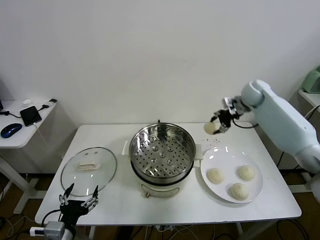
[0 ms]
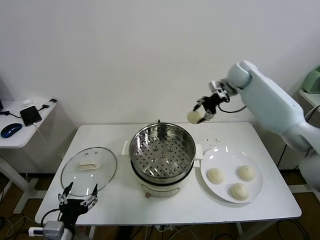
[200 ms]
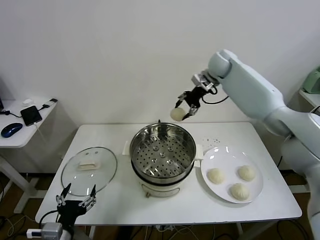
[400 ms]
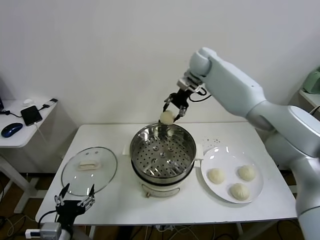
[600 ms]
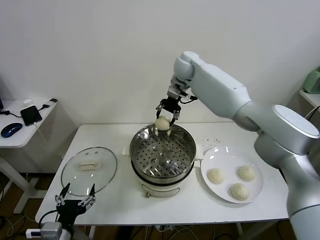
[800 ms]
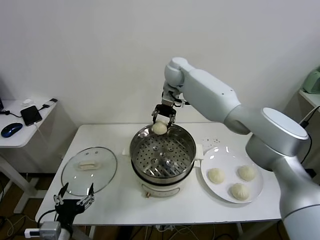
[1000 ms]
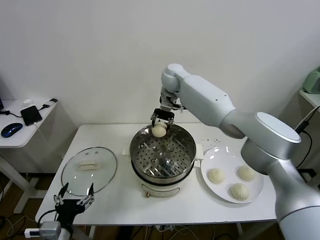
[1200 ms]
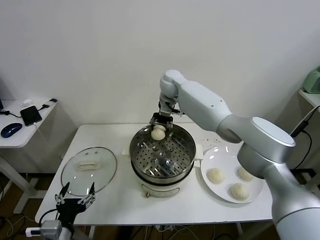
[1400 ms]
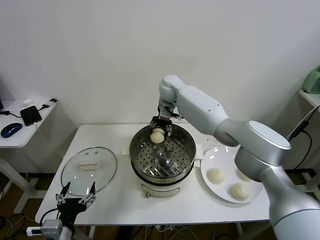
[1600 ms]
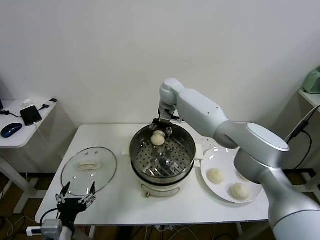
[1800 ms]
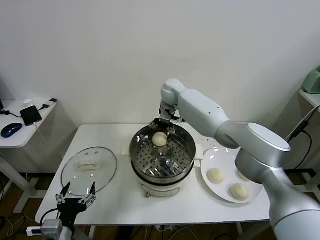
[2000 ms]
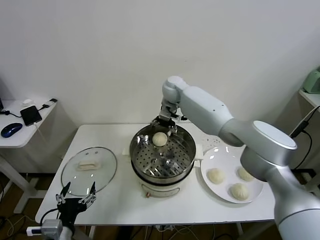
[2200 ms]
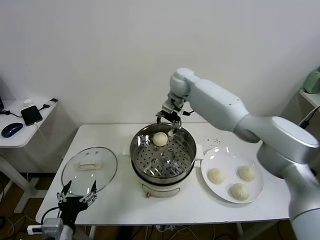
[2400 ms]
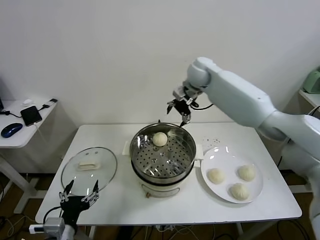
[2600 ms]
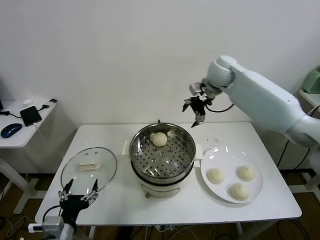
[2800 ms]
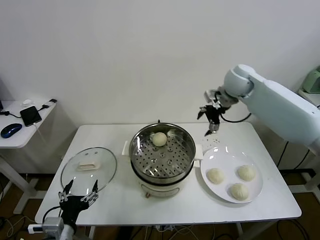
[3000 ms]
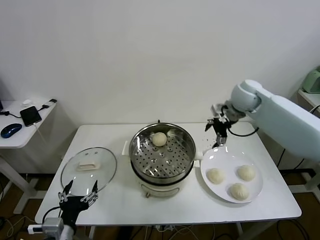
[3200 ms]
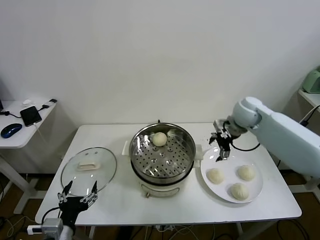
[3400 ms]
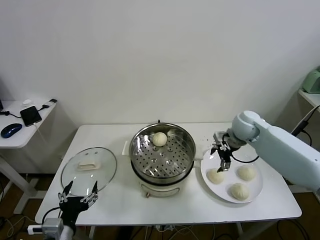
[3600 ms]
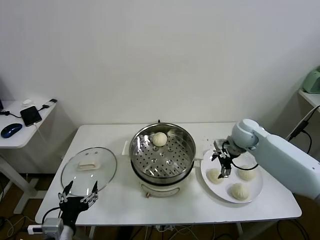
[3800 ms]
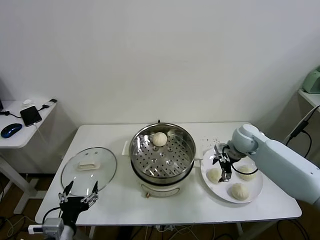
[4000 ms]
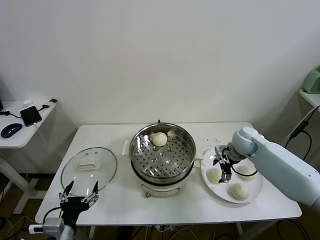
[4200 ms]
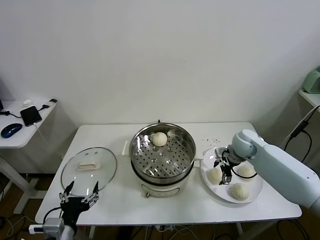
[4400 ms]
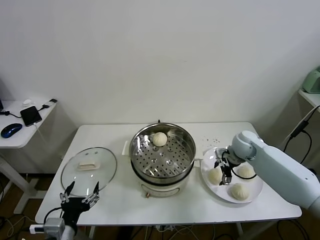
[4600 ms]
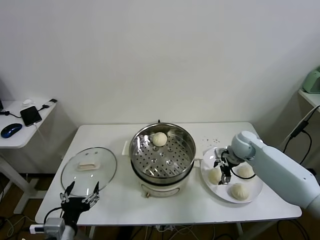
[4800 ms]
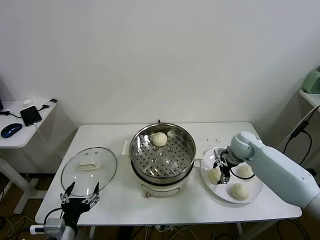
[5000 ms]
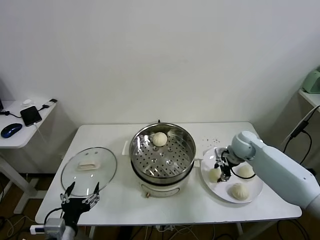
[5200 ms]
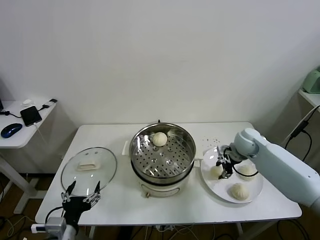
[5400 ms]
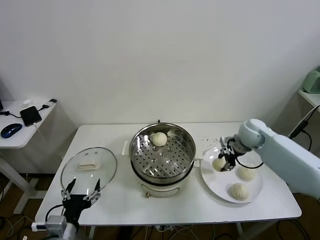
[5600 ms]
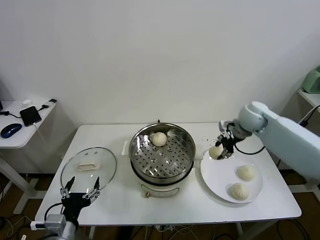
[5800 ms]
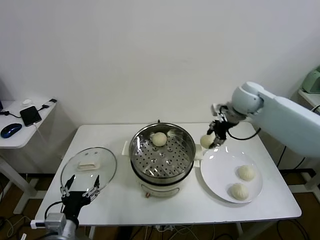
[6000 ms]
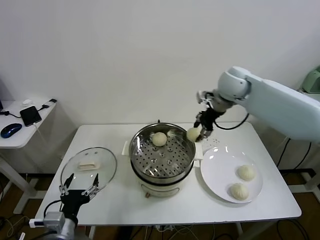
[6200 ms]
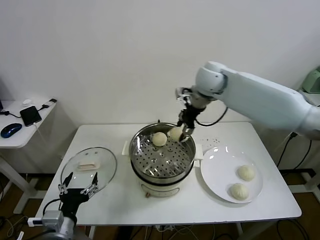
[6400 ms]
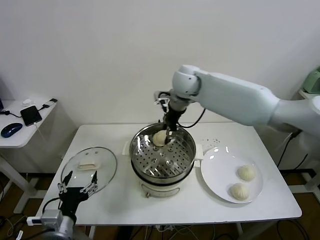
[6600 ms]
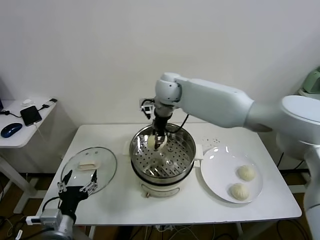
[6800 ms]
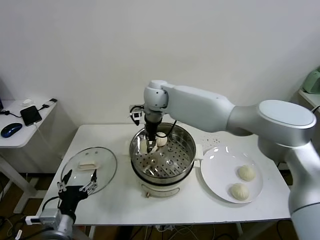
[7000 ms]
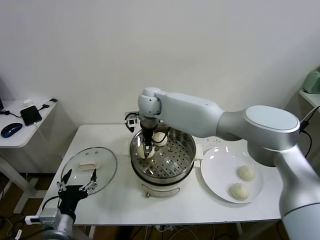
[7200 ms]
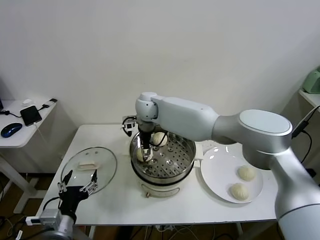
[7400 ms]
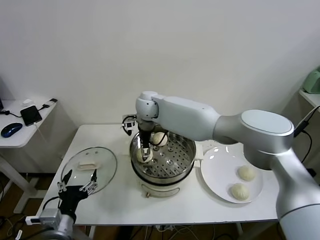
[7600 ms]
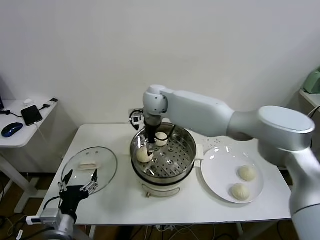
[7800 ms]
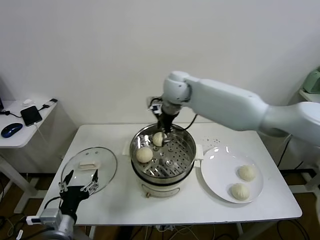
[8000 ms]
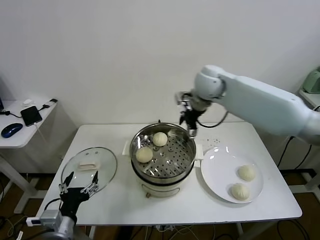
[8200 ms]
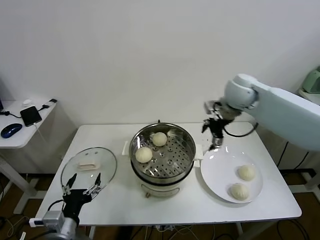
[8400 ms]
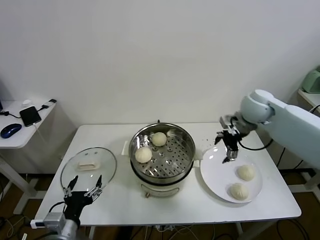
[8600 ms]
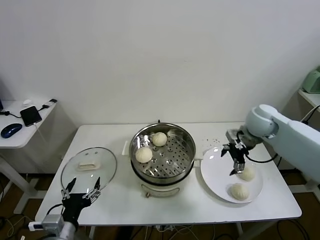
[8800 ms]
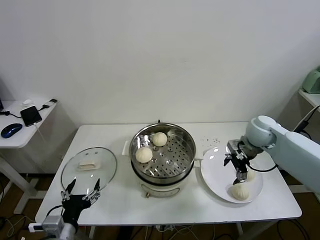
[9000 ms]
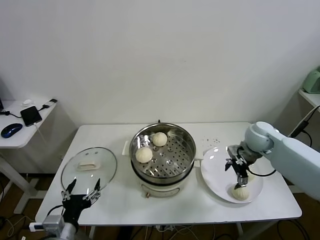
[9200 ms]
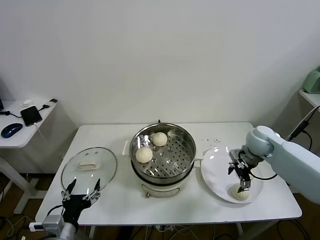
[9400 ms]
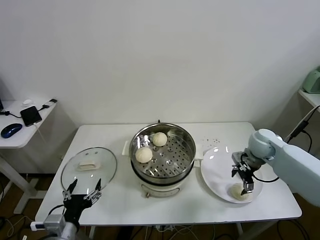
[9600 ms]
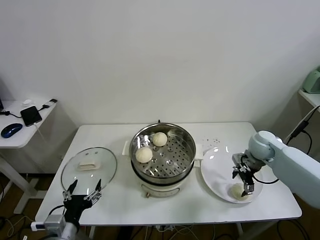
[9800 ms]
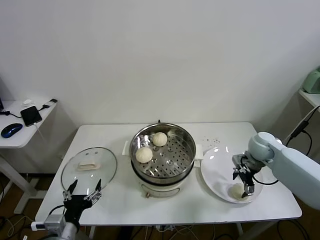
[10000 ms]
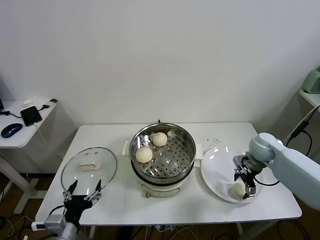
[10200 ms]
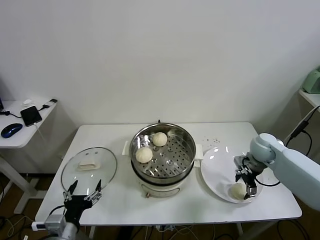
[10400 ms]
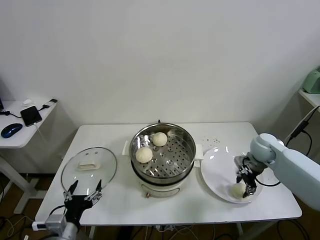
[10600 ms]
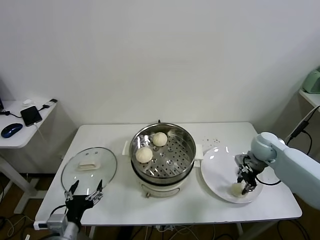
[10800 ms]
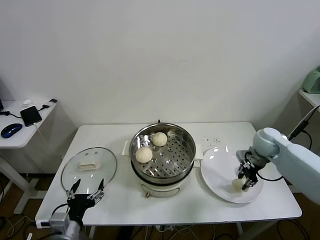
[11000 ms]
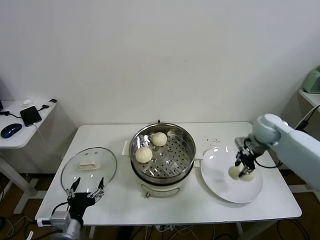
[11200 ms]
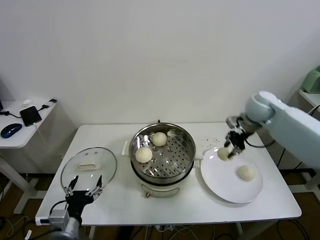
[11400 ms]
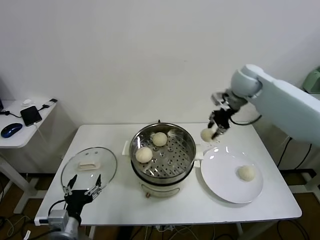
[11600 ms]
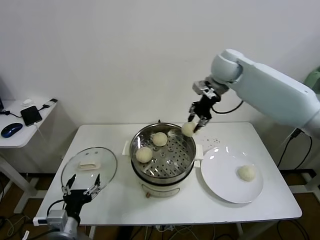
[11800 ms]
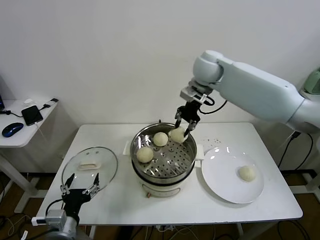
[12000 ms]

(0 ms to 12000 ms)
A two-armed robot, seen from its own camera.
Task of the whole recording: take steamed baozi put them in steamer.
Step, 0 ms - 2000 ms: Place the baozi on the steamer with right gripper.
Step, 2200 ms - 5200 ms: Grasp the baozi in the plate with right gripper.
Step, 5400 ms - 7400 ms: Place the baozi on the steamer with right gripper.
Step, 7800 ms - 10800 ms: Grasp the baozi in the plate with right gripper.
0 ms - 1600 ms: The right gripper moves to the left, roughly 25 cm.
1600 ms - 3000 ms: The right gripper moves to the right, approximately 25 cm, and opens its fingers.
3000 ms - 4400 ms: The right gripper heads downward, covering about 20 cm.
4400 ms - 6000 ms: The right gripper is displaced upward by some 25 cm, and closes its fingers.
6000 ms - 7600 ms: The right gripper is displaced to the left by about 25 cm, and opens.
7600 ms - 9000 ms: The right gripper shifts some 35 cm to the right.
9000 ms - 10400 ms: The right gripper moves downward, roughly 5 cm.
10400 ms - 12000 ms: The right gripper goes roughly 35 cm upward and to the left, and closes up.

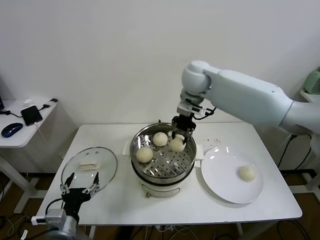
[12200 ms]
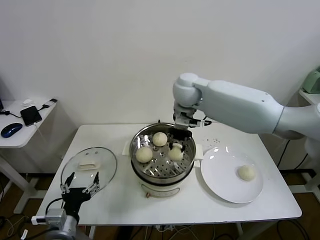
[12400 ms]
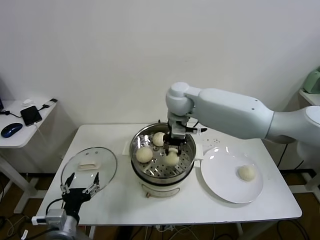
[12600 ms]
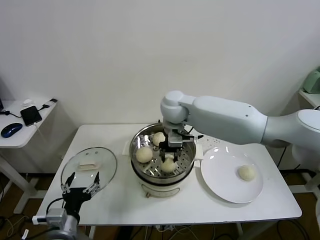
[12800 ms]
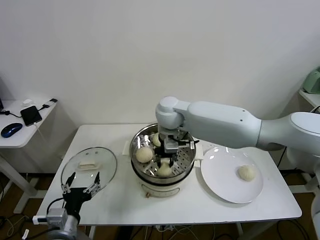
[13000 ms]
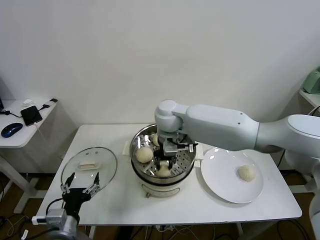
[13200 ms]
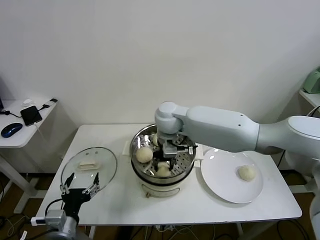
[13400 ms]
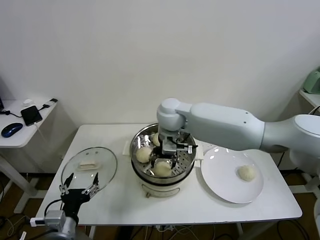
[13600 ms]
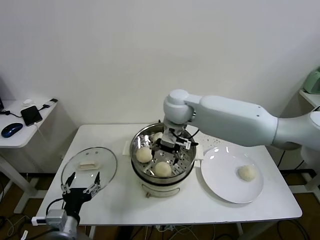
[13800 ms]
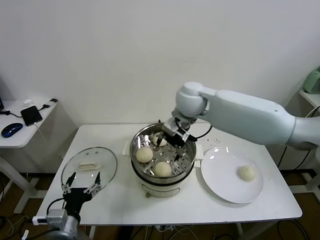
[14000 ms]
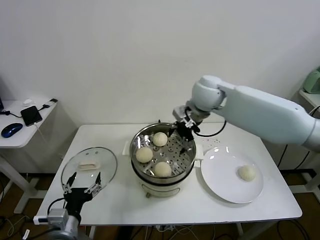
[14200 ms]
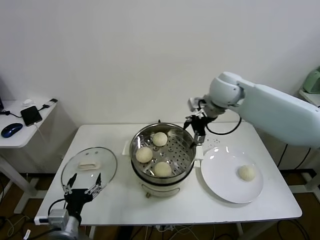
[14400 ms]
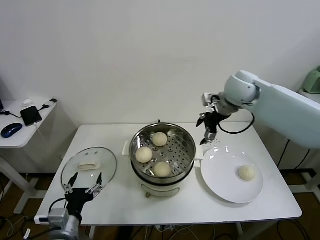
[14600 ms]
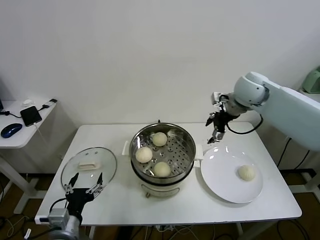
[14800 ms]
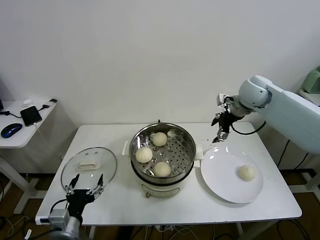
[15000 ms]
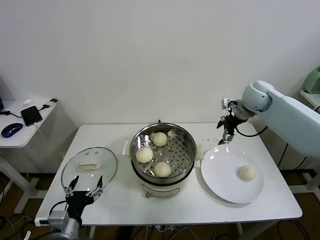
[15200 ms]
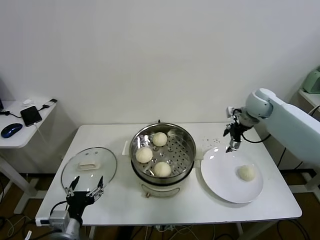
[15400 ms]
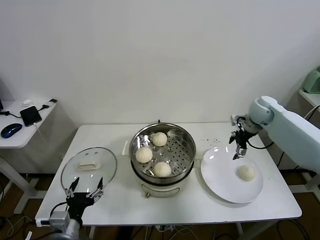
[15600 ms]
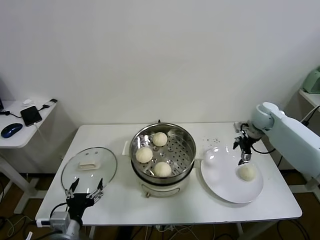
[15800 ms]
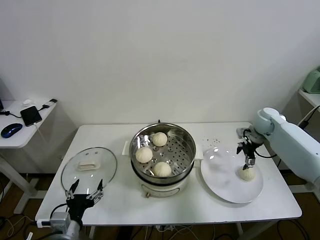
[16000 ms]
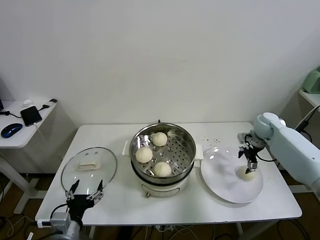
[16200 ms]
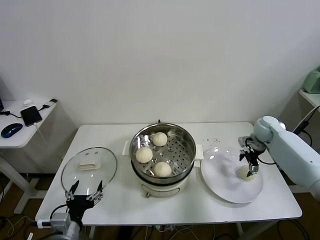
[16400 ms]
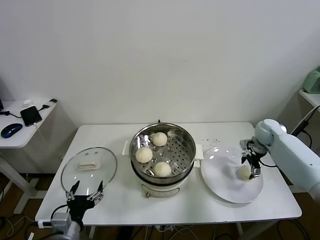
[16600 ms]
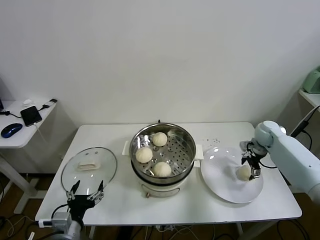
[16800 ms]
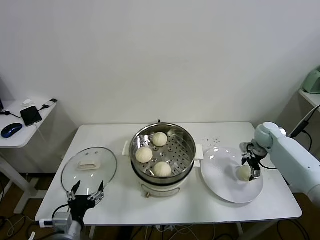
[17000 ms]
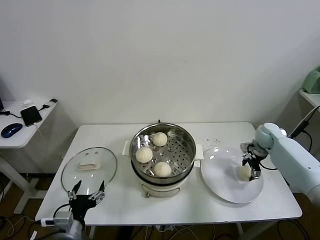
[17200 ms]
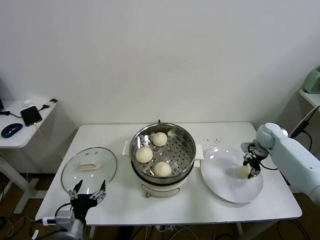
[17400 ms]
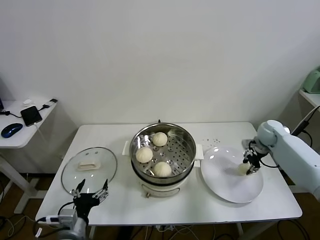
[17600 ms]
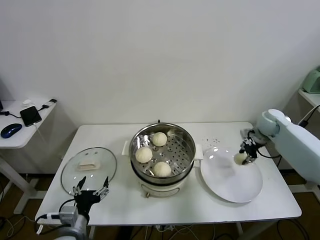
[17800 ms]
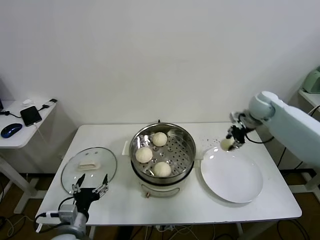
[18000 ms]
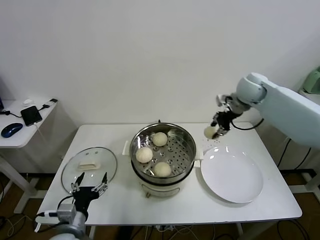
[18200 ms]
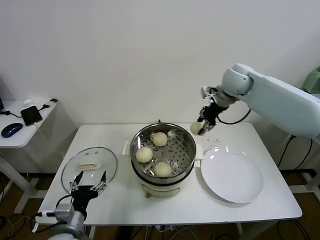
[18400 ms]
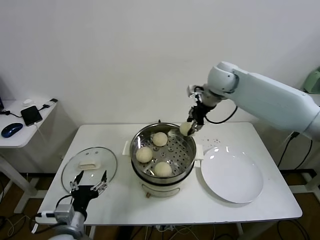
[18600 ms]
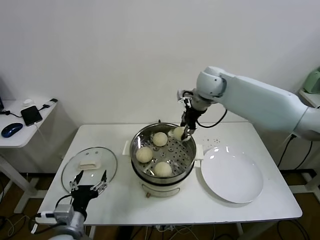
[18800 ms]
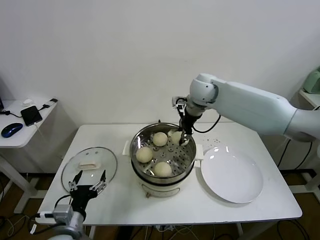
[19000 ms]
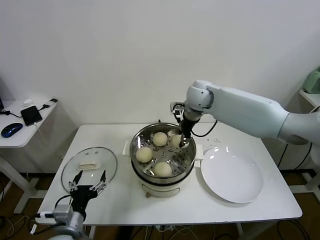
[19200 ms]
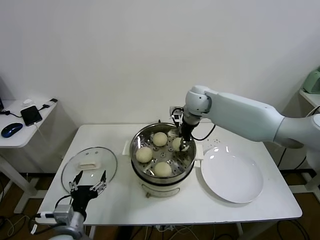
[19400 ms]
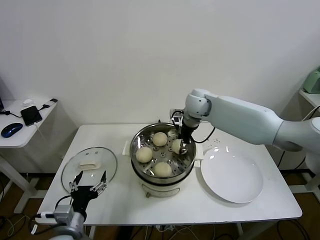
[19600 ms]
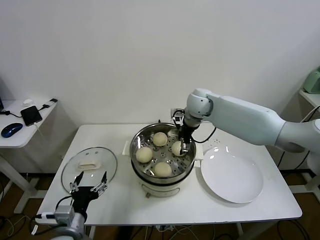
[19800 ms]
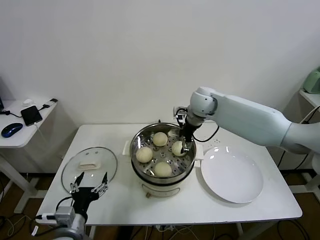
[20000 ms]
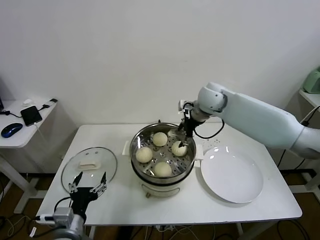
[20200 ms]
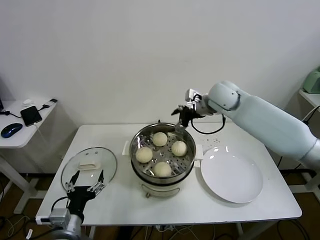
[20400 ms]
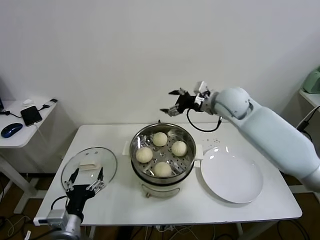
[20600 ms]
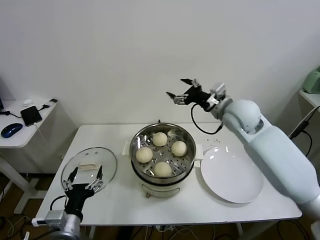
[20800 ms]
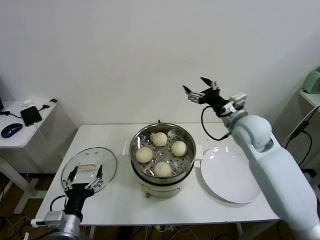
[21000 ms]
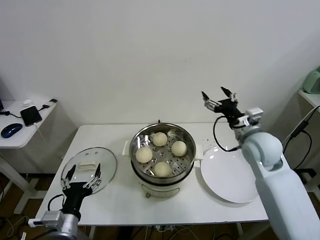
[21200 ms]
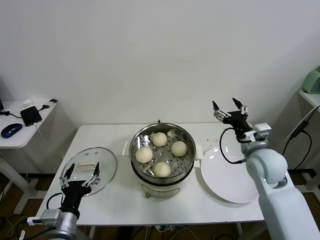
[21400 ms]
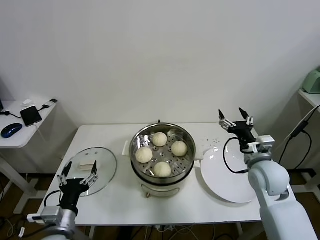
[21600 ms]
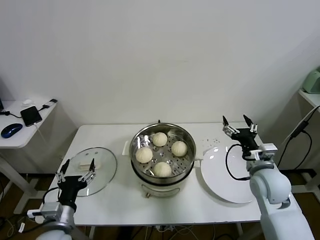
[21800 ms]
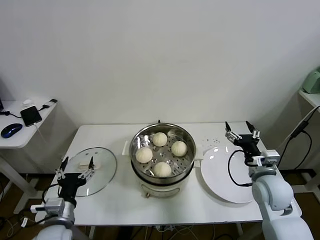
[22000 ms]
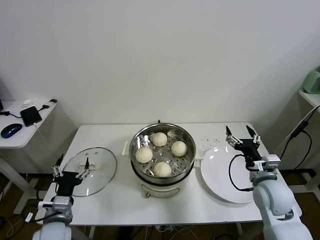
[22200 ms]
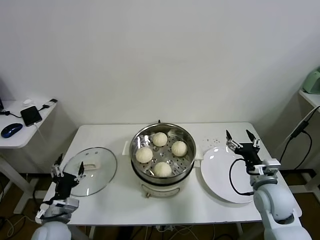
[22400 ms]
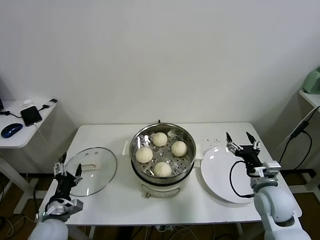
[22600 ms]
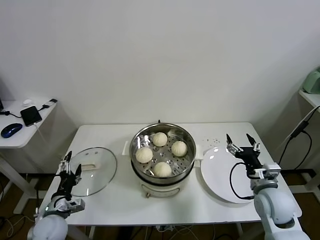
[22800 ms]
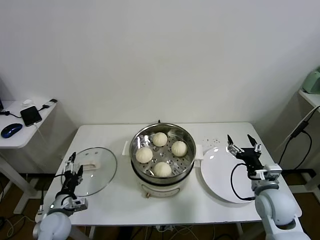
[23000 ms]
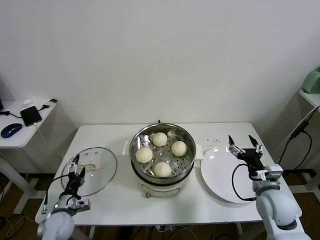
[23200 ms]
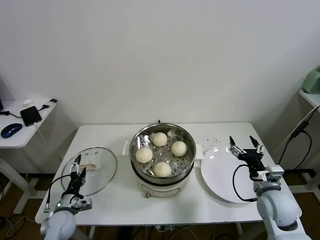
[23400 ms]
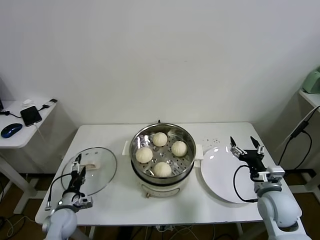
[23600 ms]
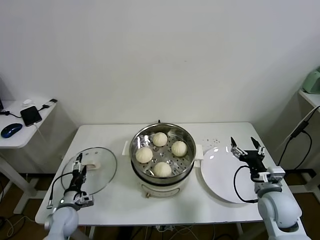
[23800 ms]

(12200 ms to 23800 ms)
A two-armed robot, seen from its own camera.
Task of the whole recording: take steamed baozi put them in steamer.
Step, 12200 ms - 13600 ms: Place the baozi on the steamer with right gripper.
Step, 14000 ms - 17600 ms: Grasp the baozi in the plate with right gripper.
Step, 17800 ms - 19800 ms: Place the baozi on the steamer with right gripper.
12200 ms - 13600 ms: The right gripper heads downward, backward and to the left, covering about 10 cm, and opens up.
13600 ms - 15000 ms: The right gripper goes about 25 cm to the right.
15000 ms - 16600 ms: The right gripper heads downward and to the right, covering approximately 20 cm.
16600 ms - 18000 ms: The right gripper is displaced upward and to the left by roughly 15 cm, and closes.
18000 ms - 19400 ms: The right gripper shifts some 20 cm to the left.
19400 ms - 21000 ms: The right gripper shifts roughly 20 cm backward and to the right, and opens.
21000 ms - 22400 ms: The right gripper shifts about 20 cm downward, backward and to the right, while the left gripper travels to the left, forward and downward by some 10 cm.
22400 ms - 23800 ms: The left gripper is displaced downward and forward by about 15 cm.
